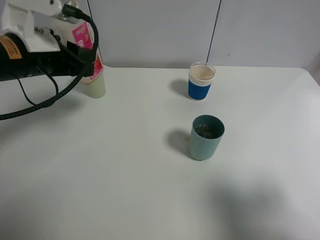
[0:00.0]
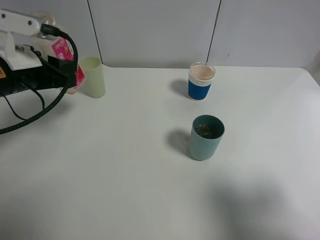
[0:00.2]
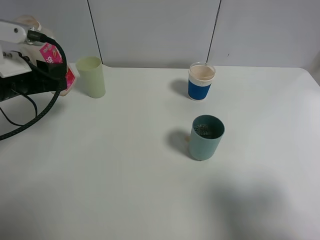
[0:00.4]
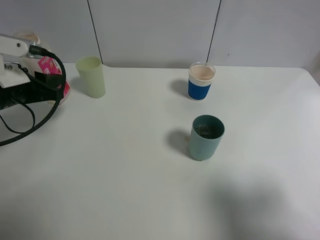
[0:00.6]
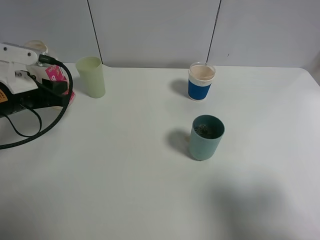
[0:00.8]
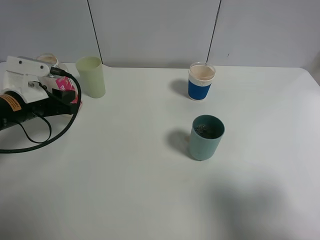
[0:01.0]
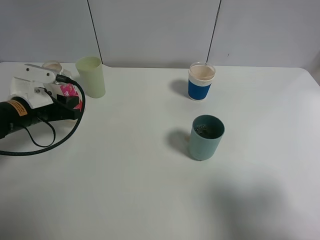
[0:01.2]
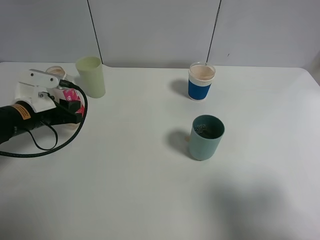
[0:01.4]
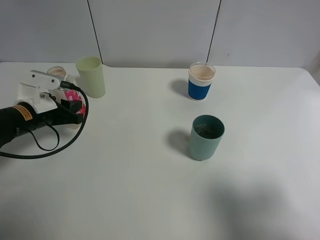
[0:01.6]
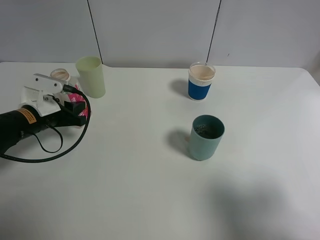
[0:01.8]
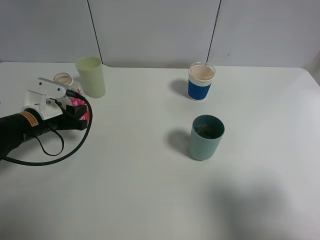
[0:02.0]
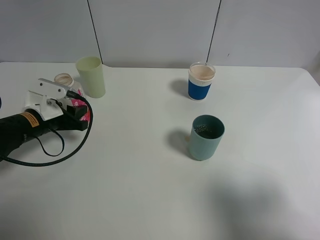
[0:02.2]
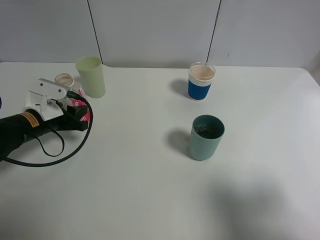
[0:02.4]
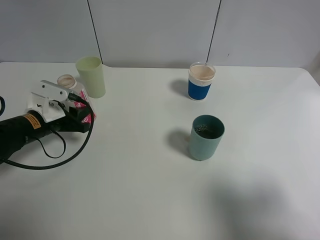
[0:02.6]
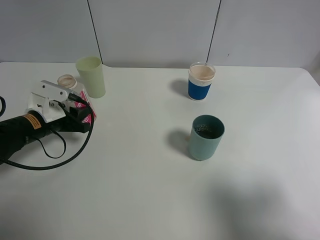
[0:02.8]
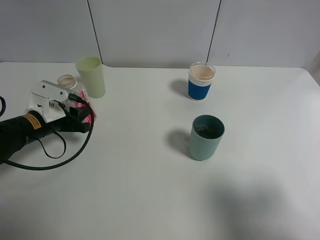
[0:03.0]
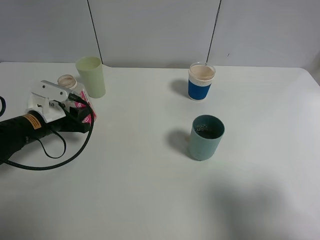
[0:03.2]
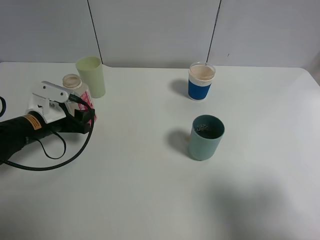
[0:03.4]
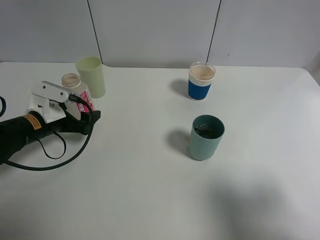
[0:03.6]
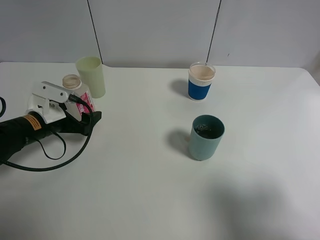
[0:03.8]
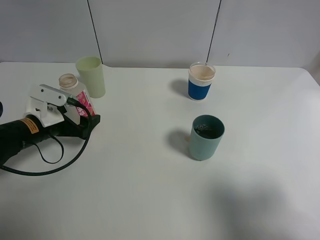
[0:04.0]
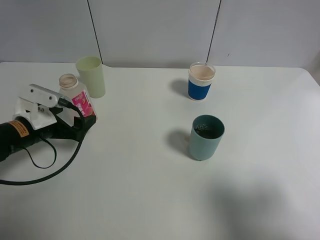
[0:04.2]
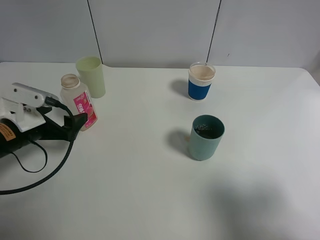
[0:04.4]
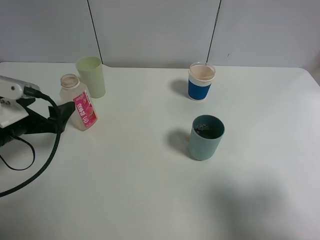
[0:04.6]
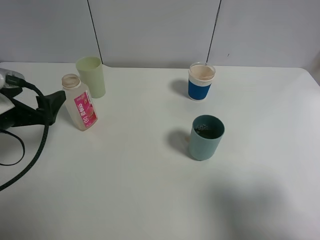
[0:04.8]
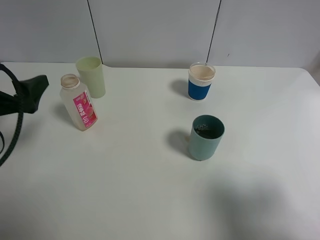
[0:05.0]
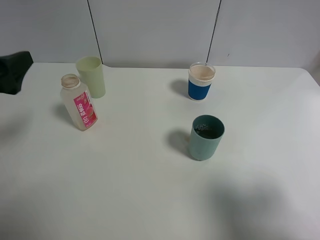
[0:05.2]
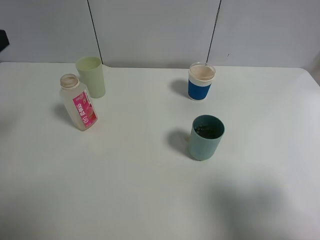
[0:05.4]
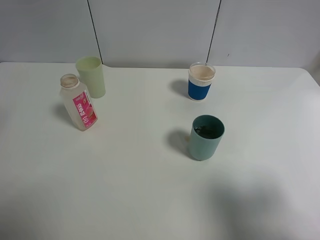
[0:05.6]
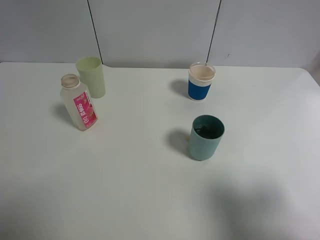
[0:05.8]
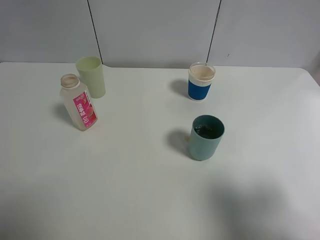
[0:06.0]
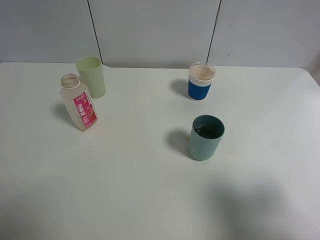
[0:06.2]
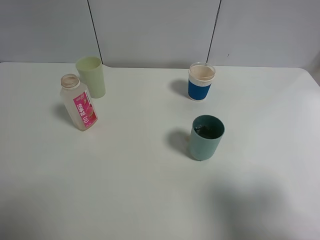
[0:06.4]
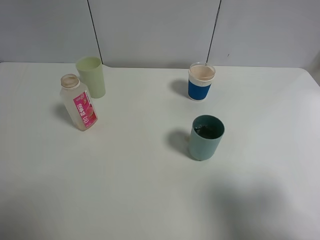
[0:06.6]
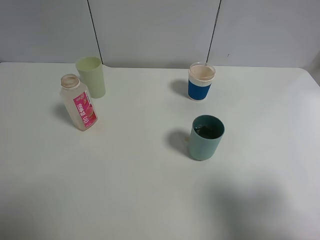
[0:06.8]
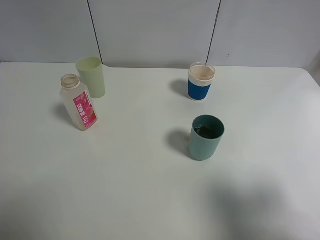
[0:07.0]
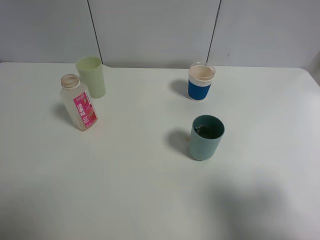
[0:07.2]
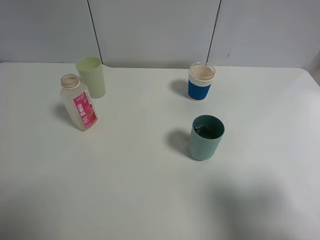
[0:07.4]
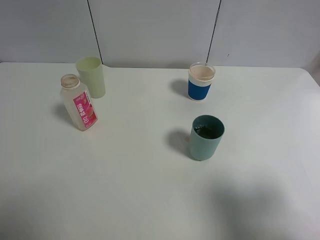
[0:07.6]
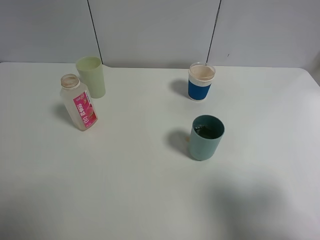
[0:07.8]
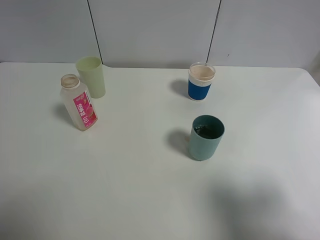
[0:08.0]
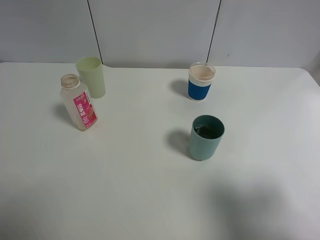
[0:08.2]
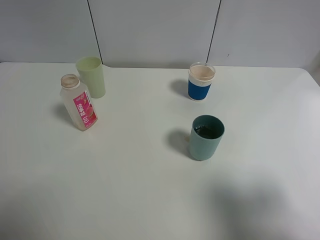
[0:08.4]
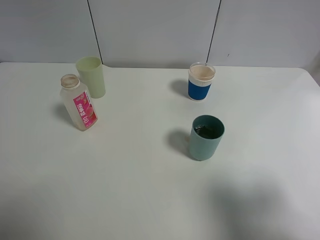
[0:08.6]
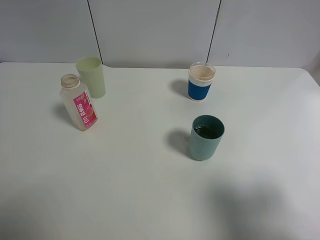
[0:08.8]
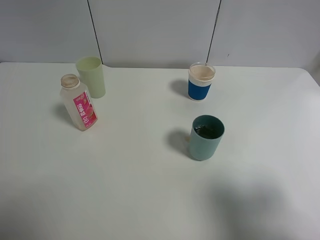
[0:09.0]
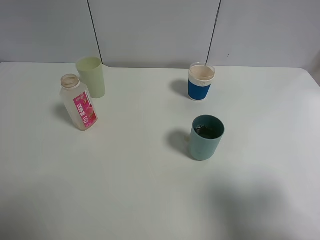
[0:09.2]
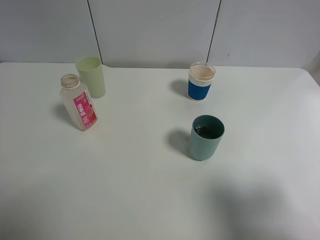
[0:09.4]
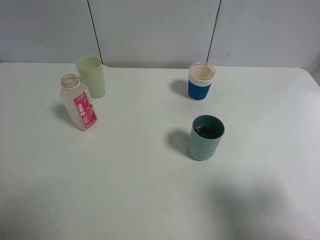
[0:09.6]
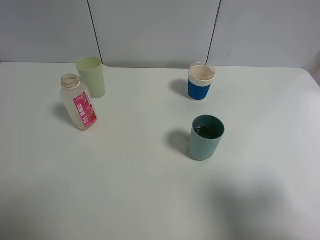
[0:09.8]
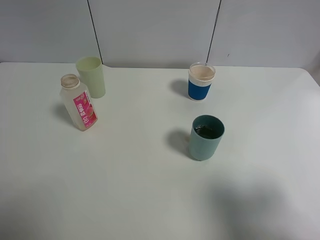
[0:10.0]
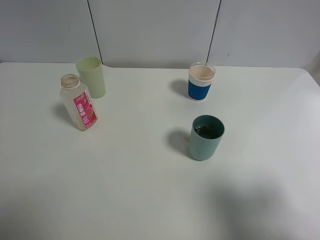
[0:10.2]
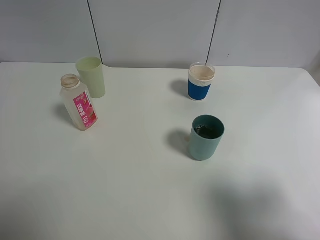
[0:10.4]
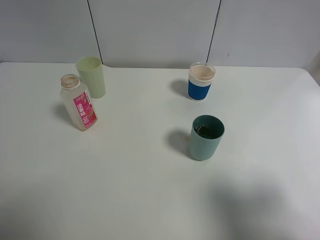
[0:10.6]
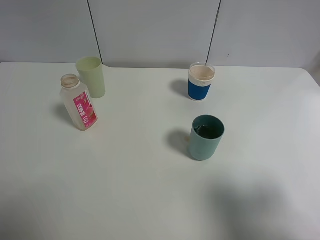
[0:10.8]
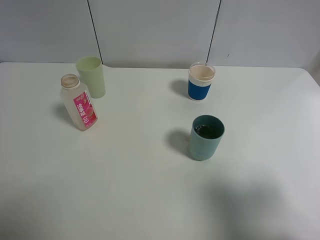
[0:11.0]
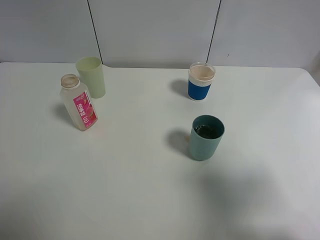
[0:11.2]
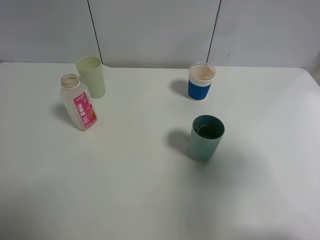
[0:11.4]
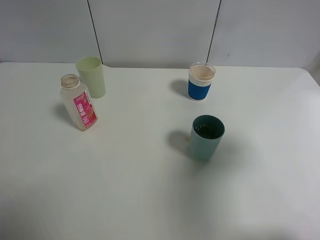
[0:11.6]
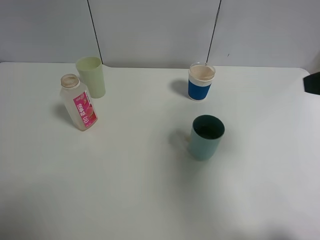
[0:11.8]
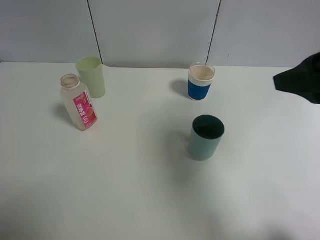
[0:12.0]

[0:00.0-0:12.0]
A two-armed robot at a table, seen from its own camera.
Task of the whole recording: use a clamp to hold the bottle of the drink, pour the beverage into a random cup, then clamp the cup containing the drink and pour the drink into another random cup.
Step, 0:00.0 to 0:04.6: Place the drink bottle on the table with left gripper.
0:00.0 to 0:01.6: The left gripper goes some 15 cm downward.
0:01.6 to 0:03.0: The grippers stay close to where they were, moving slightly.
0:03.0 to 0:04.4: The left gripper travels backward by some 5 cm, and opens up.
0:04.4 to 0:06.0: The left gripper heads upward and backward, covering approximately 25 cm.
0:09.0 to 0:10.4: The two grippers keep their place.
0:10.4 to 0:12.0: The right gripper moves forward and to the left, roughly 15 cm.

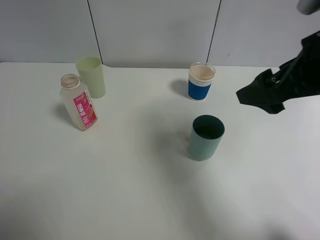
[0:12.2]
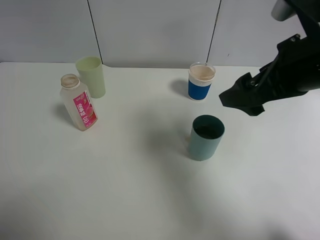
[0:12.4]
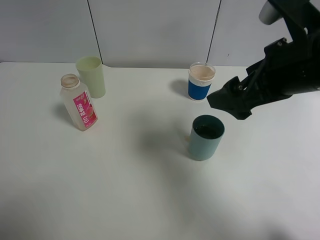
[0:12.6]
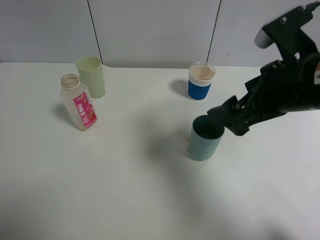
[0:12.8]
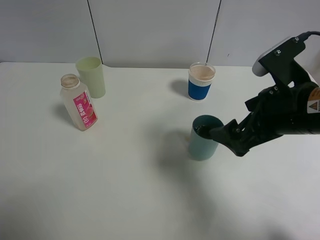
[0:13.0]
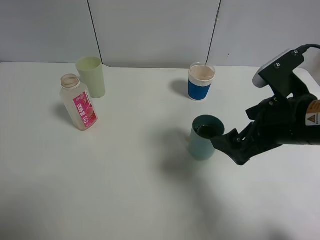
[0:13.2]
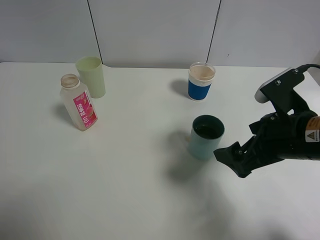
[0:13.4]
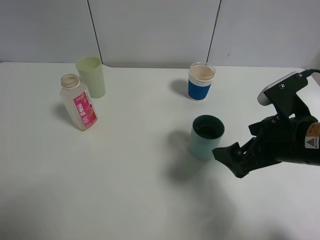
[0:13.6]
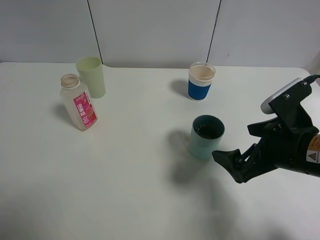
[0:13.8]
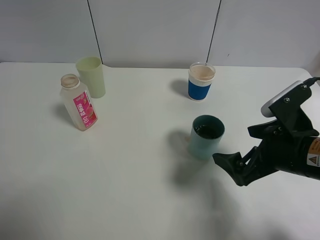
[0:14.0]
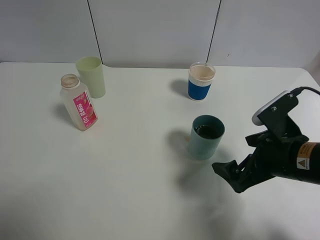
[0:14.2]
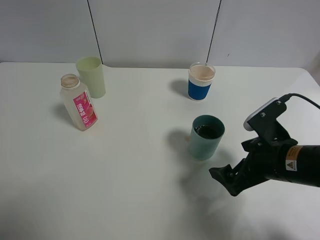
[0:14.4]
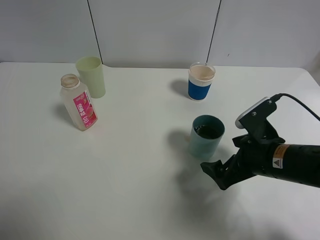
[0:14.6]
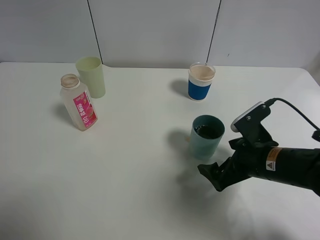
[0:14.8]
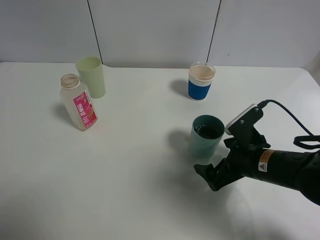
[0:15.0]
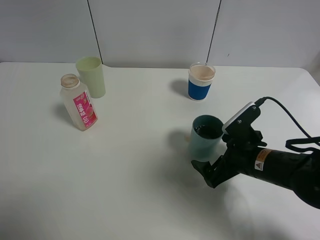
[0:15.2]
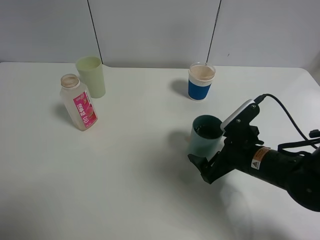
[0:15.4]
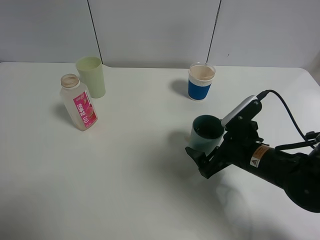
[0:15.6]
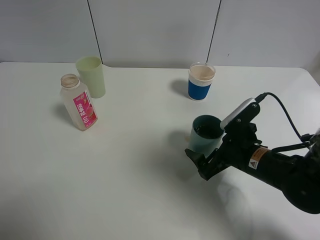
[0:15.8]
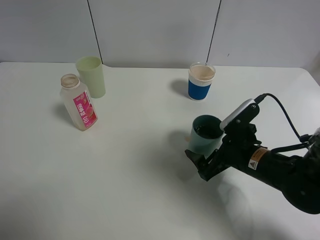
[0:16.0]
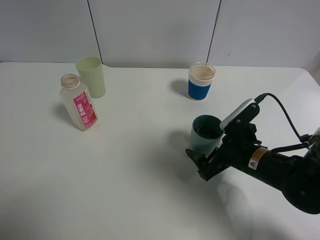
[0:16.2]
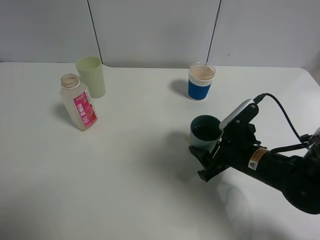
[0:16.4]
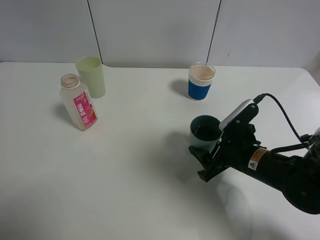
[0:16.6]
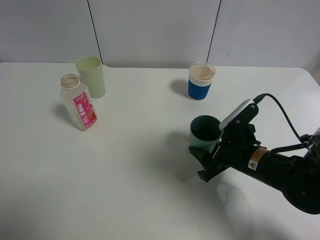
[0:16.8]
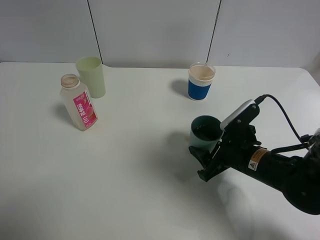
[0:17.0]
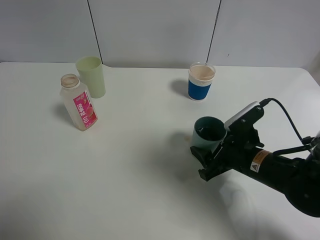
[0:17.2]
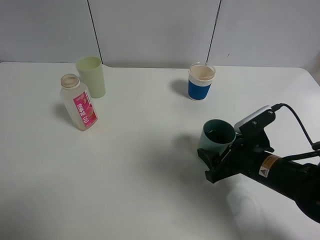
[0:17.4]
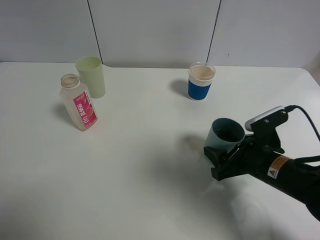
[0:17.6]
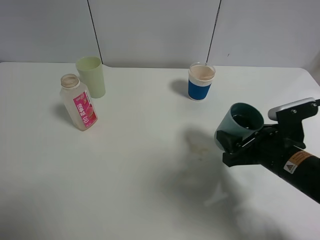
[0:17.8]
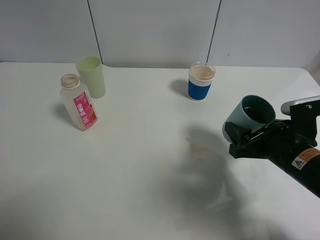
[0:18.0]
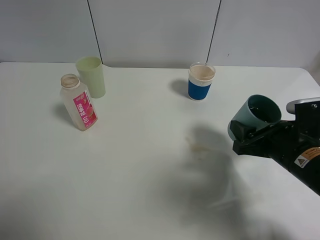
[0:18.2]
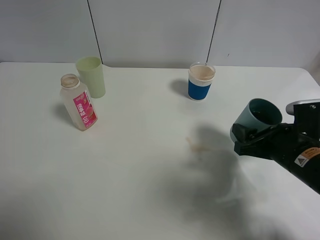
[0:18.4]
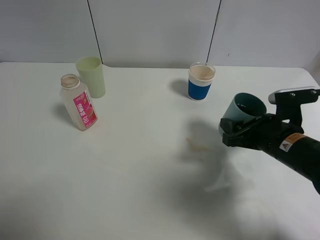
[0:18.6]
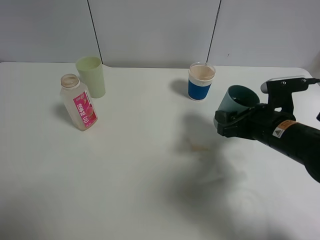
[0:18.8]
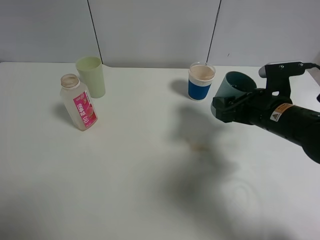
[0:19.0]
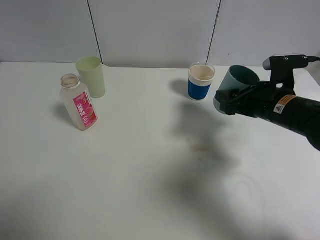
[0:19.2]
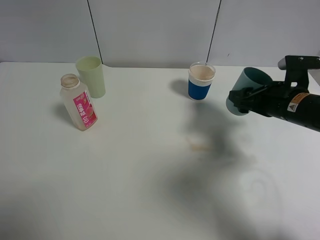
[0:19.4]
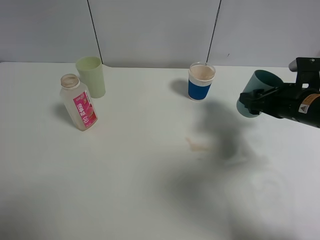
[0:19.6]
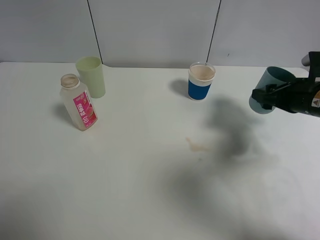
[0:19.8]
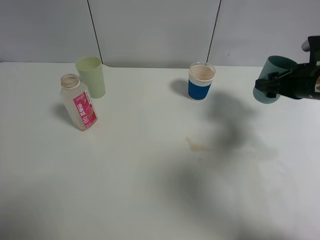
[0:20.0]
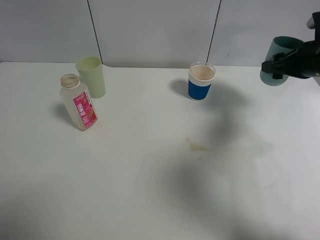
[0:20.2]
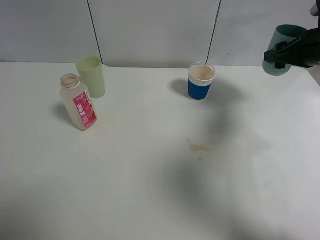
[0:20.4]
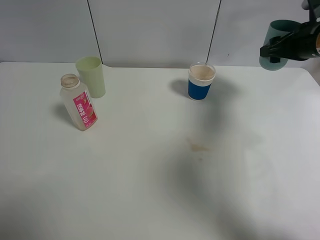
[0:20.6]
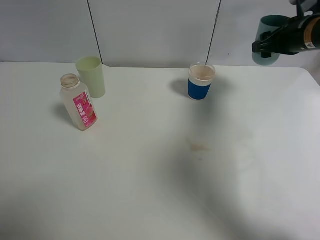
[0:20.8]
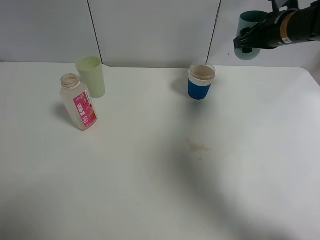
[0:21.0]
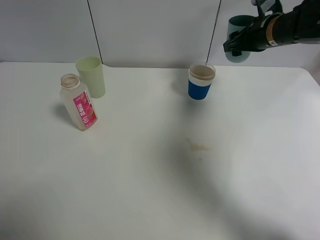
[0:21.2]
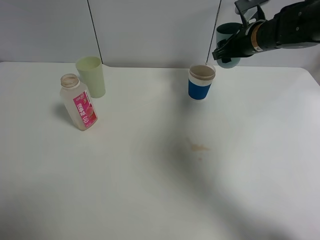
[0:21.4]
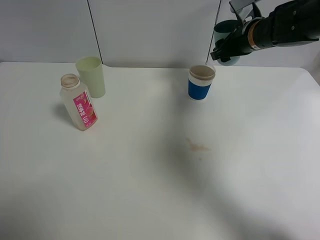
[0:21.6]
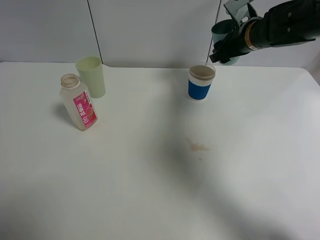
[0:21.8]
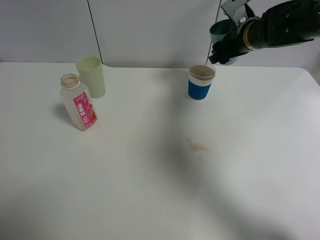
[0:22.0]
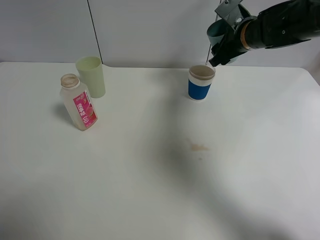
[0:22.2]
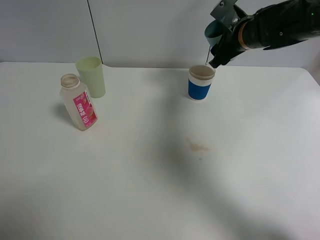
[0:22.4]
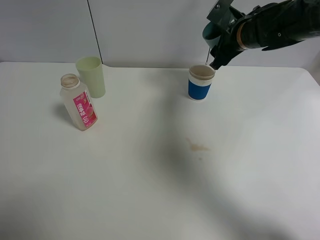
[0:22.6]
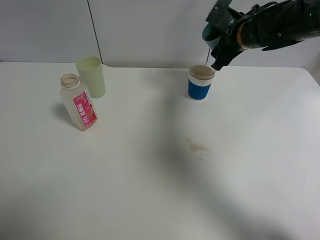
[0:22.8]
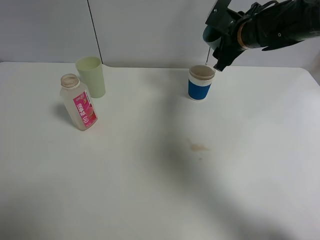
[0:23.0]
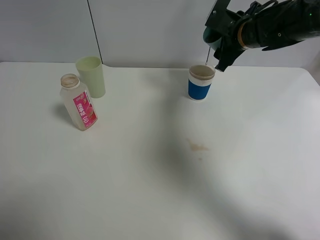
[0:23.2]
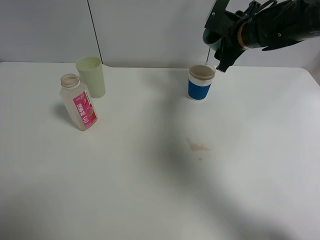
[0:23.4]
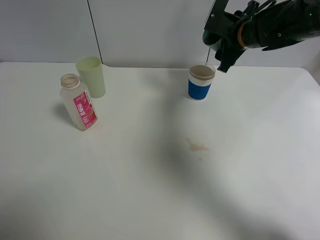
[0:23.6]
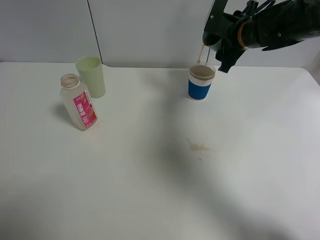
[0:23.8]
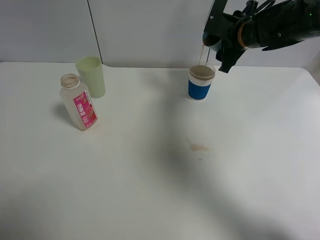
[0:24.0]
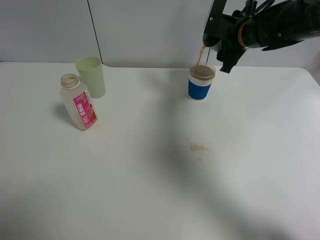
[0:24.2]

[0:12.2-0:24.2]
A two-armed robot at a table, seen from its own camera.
Task of the whole recording: use a clamp to hold the bottle of the drink, pour the beverage into a random cup, then clamp the cup containing the drink and pour the drink into another random cup.
Step, 0:12.2 to 0:17.8: Pick up the blue plastic cup with right gripper.
0:12.2 to 0:13.8: The right gripper moves downward, about 15 cm.
0:13.8 to 0:15.2: The right gripper goes roughly 10 cm downward.
0:15.2 to 0:16.6: The right gripper closes.
0:16.6 to 0:18.2: The right gripper heads to the right, covering roughly 5 cm.
0:18.2 to 0:19.8: The right gripper shifts some 15 cm forward and to the right.
0:19.8 to 0:21.2: The right gripper moves forward, to the left and upward, about 15 cm.
0:21.2 to 0:22.6: The right gripper ends up some 5 cm from where it was.
0:22.6 to 0:24.2: The grippers make only small movements.
